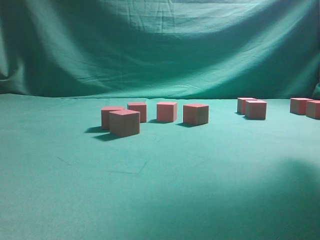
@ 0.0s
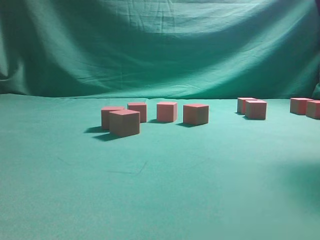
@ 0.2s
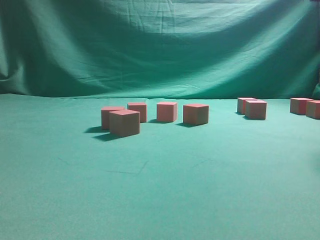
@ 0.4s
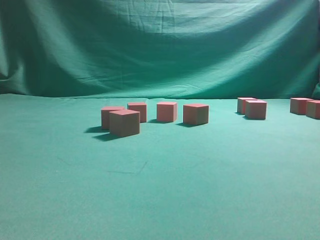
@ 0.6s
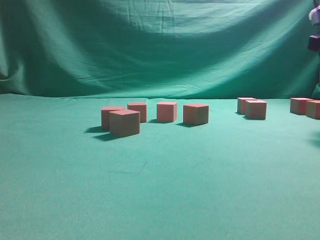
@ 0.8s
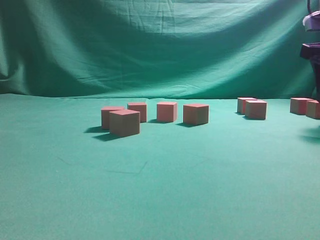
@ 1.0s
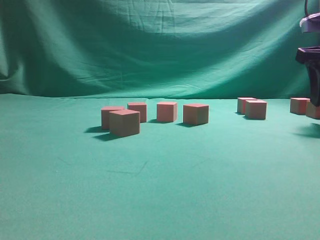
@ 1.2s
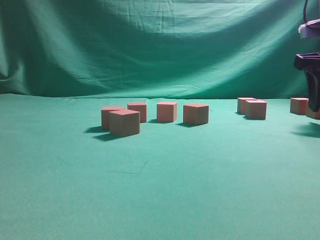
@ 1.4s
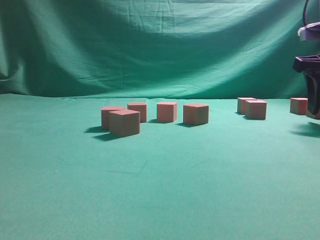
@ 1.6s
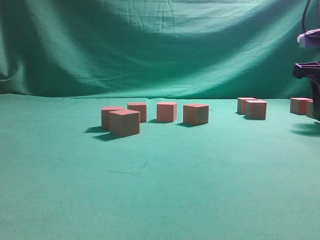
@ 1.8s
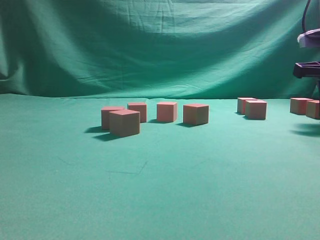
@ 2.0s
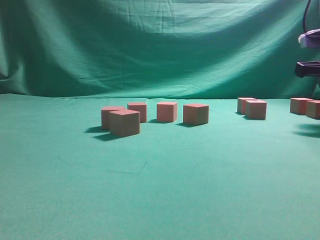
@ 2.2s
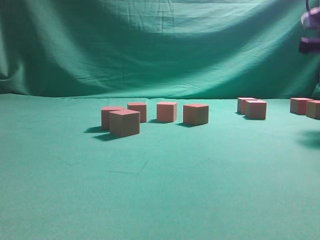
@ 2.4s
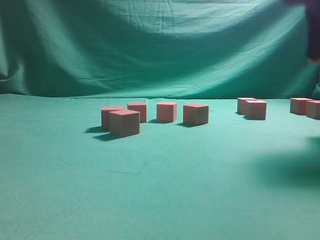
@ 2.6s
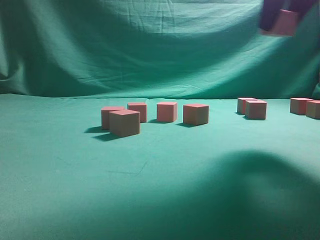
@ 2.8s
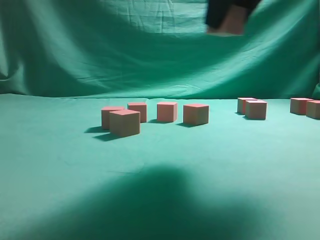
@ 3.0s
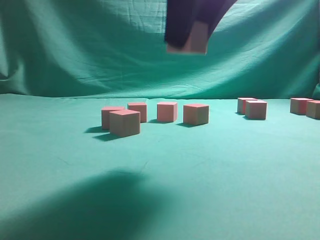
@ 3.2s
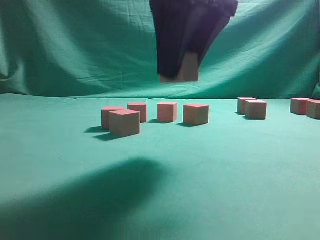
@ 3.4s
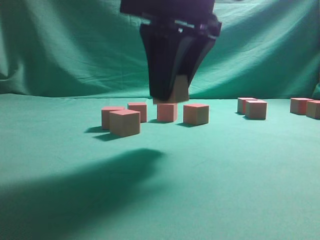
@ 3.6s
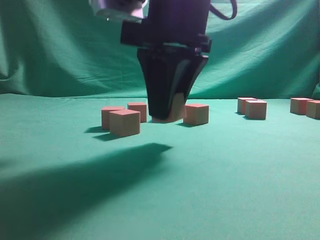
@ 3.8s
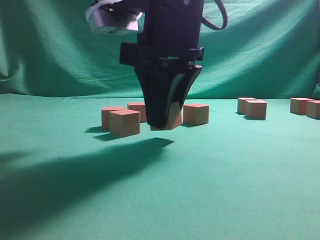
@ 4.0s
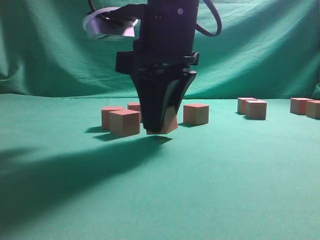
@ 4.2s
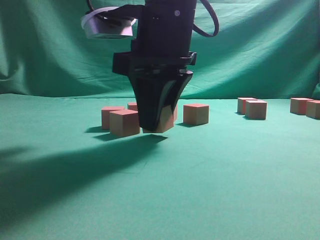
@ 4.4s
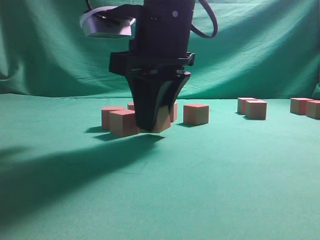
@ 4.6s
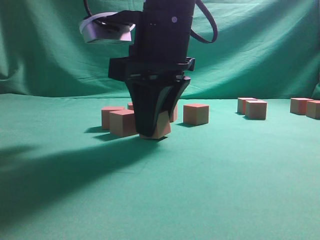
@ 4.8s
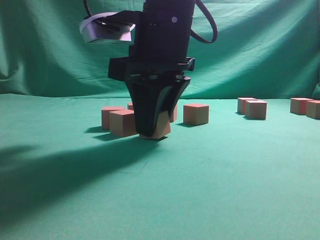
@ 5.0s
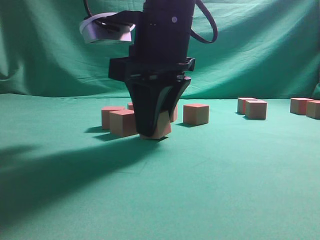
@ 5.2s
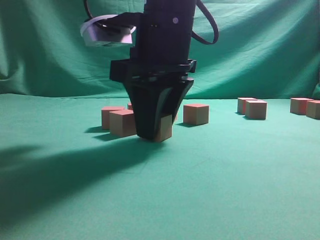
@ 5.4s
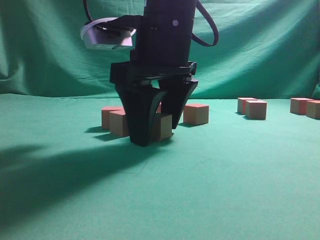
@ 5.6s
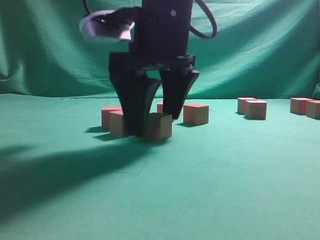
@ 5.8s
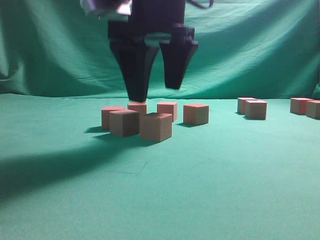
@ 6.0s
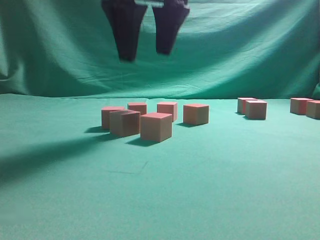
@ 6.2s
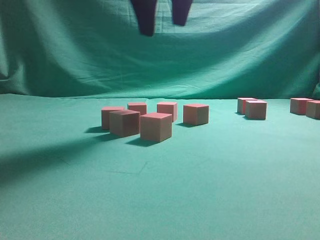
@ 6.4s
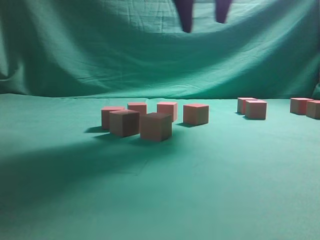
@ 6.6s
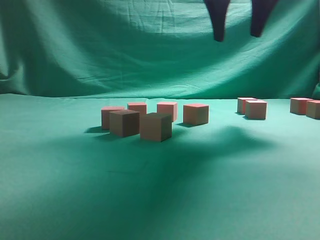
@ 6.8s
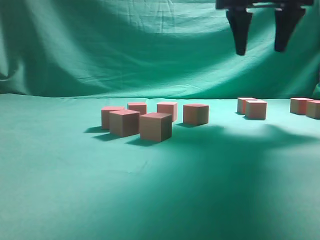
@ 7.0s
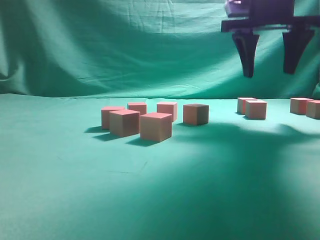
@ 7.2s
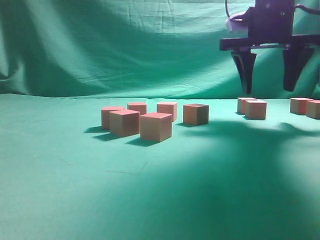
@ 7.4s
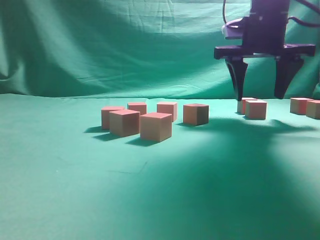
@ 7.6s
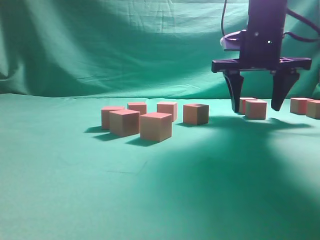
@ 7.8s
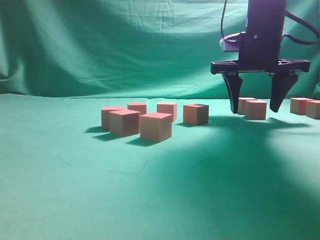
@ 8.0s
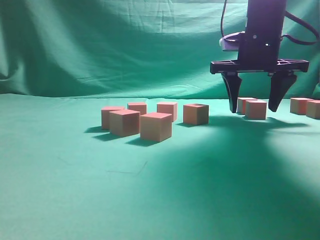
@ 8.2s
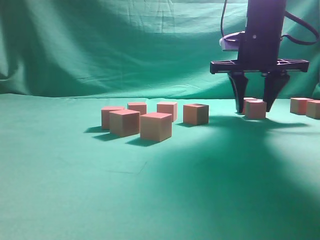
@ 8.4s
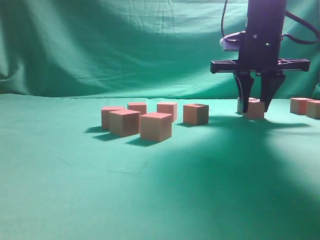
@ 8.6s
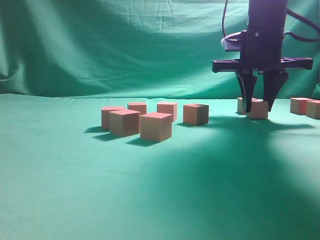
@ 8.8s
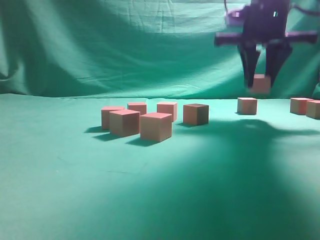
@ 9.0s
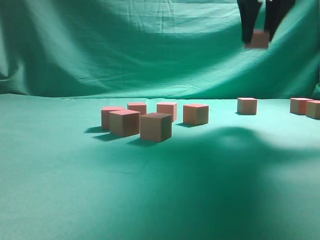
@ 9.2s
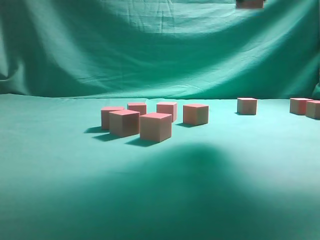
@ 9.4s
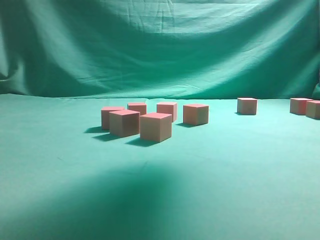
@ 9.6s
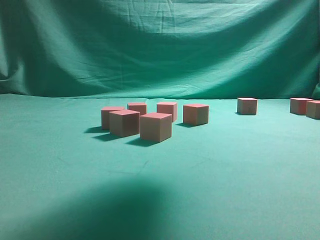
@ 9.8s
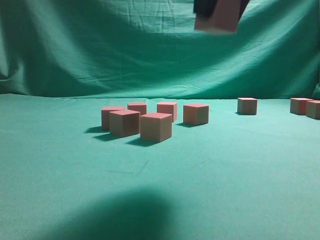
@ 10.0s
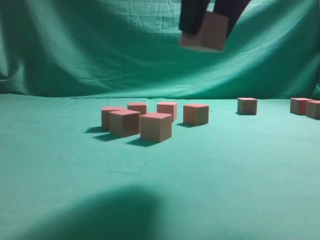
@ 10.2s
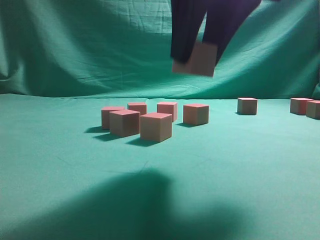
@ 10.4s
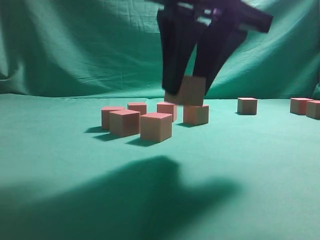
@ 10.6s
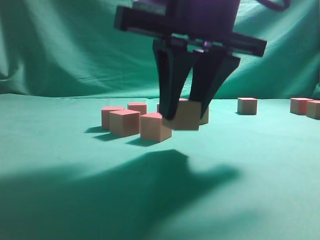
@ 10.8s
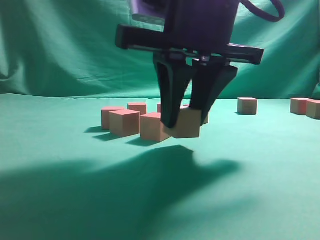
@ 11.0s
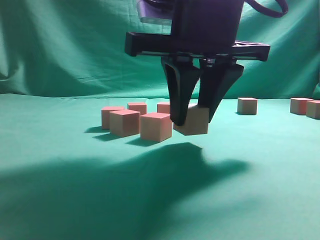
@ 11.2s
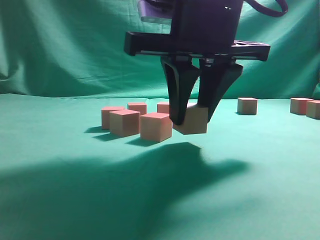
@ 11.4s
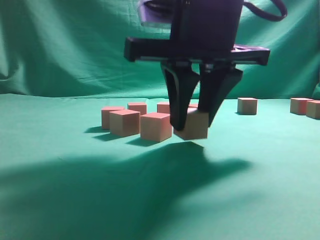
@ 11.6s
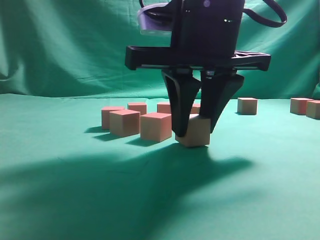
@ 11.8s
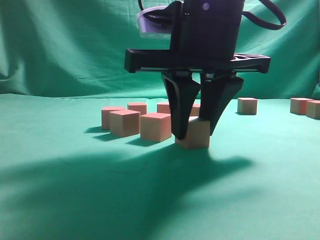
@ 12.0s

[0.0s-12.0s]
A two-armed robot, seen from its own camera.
Task of the whole recording: pick up the multiple cubes in two columns one by one and place them in another position on the table.
Step, 0.0s to 2.2s: Pick up the block on the table.
Step, 2.4s to 6.0s: Place the block at the correct position to assemble the letter S.
Step, 6.4s to 8.8s: Pick up the block on the table.
0.0s to 1.6s: The right gripper goes approximately 20 cm downward and to the right.
1.6s to 3.0s: The right gripper goes roughly 25 cm to the left, backward and upward, and closes up.
3.0s to 4.4s: The right gripper heads downward and to the left, covering some 15 cm.
4.4s to 6.0s: The right gripper opens its fingers.
6.0s to 7.6s: The right gripper is displaced to the right and forward by roughly 20 cm.
7.6s to 9.0s: The right gripper closes up.
9.0s to 10.4s: The right gripper is displaced backward and to the left by about 20 cm.
10.4s to 12.0s: The right gripper goes some 10 cm downward.

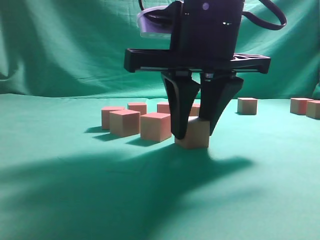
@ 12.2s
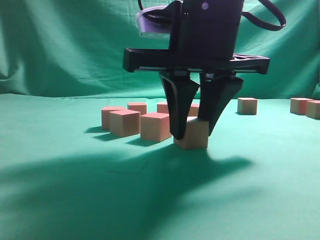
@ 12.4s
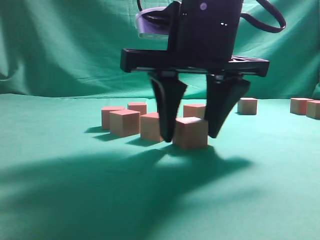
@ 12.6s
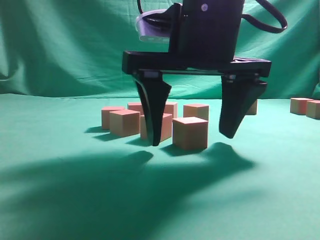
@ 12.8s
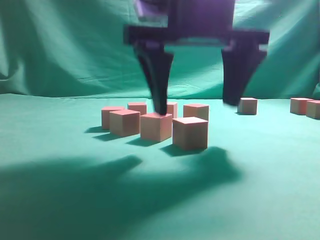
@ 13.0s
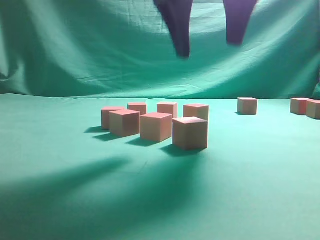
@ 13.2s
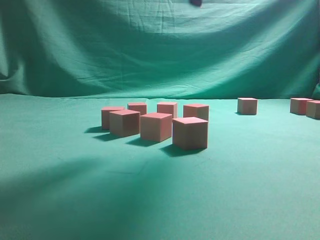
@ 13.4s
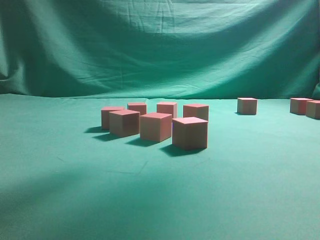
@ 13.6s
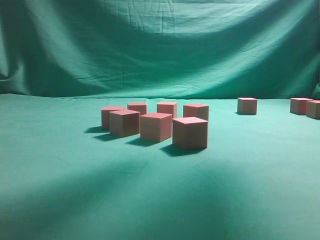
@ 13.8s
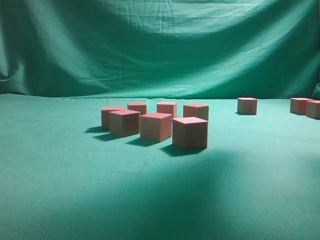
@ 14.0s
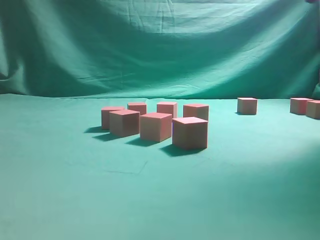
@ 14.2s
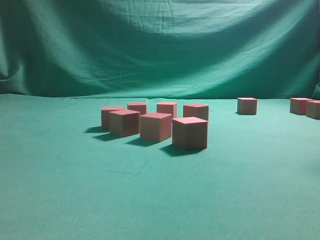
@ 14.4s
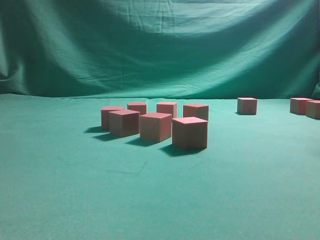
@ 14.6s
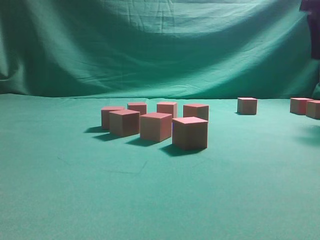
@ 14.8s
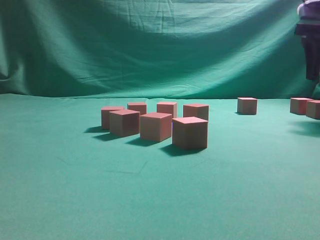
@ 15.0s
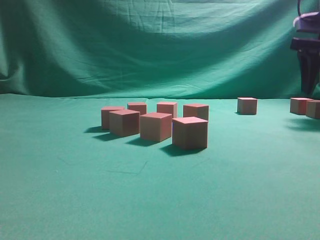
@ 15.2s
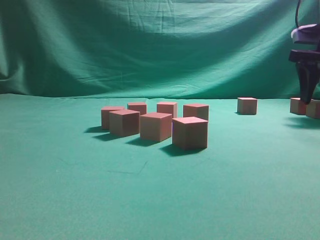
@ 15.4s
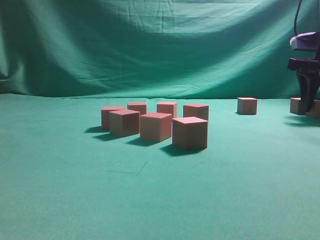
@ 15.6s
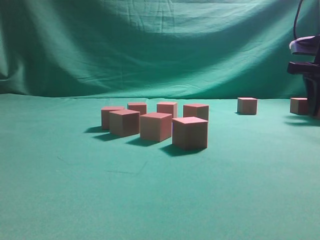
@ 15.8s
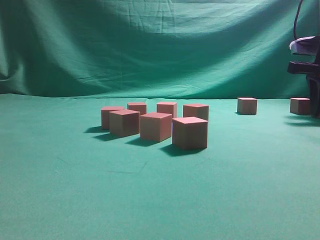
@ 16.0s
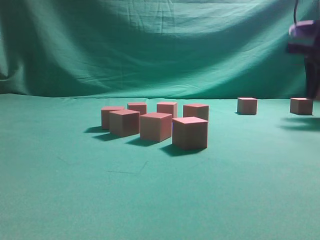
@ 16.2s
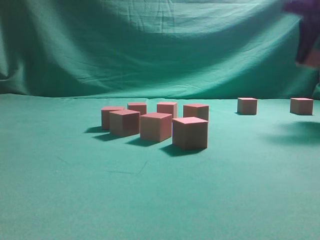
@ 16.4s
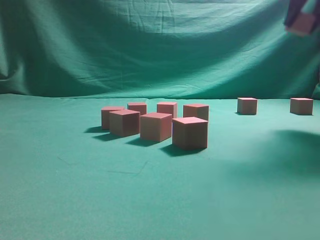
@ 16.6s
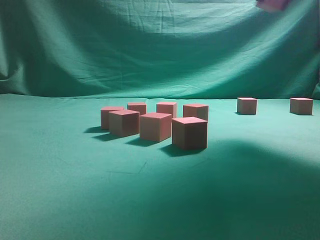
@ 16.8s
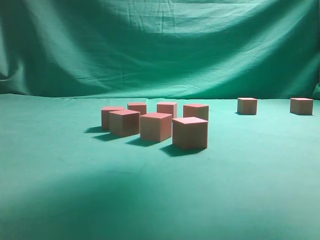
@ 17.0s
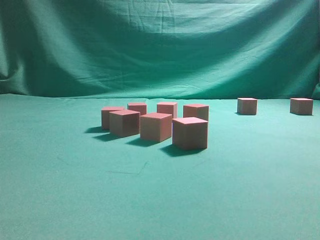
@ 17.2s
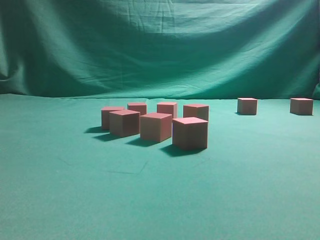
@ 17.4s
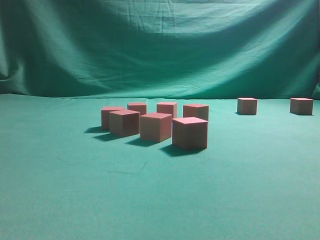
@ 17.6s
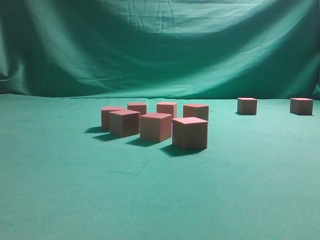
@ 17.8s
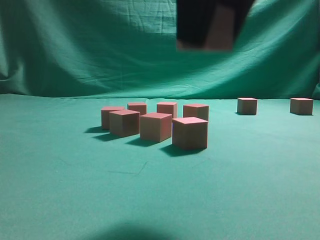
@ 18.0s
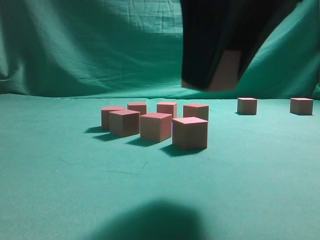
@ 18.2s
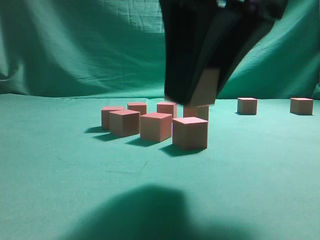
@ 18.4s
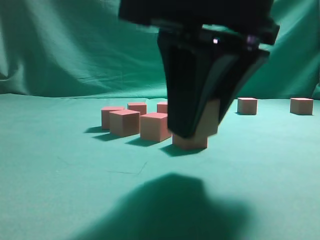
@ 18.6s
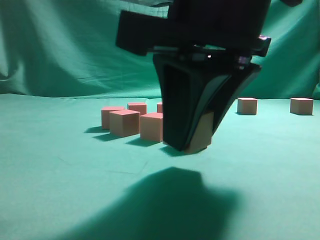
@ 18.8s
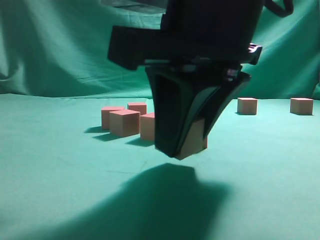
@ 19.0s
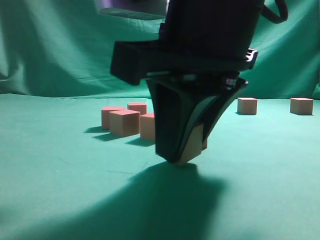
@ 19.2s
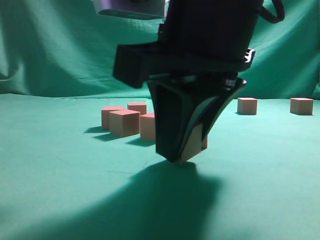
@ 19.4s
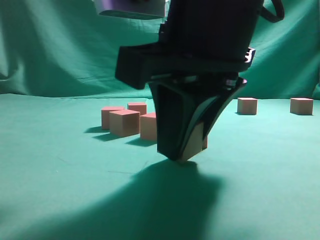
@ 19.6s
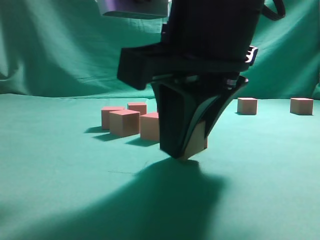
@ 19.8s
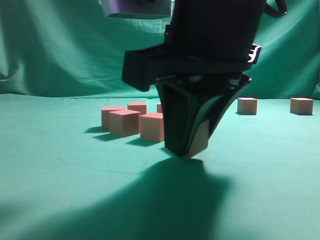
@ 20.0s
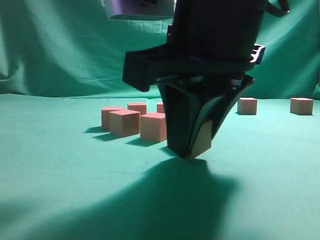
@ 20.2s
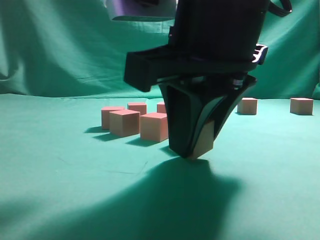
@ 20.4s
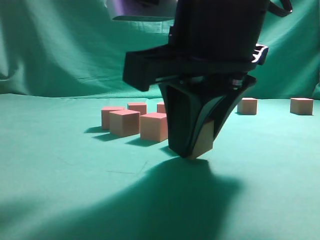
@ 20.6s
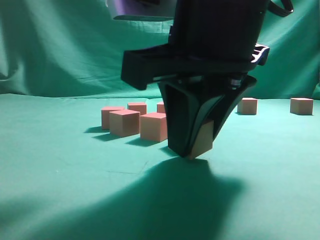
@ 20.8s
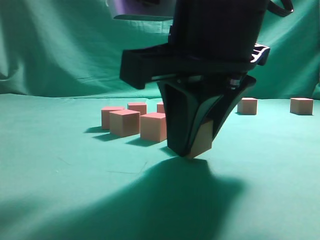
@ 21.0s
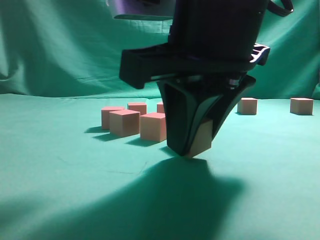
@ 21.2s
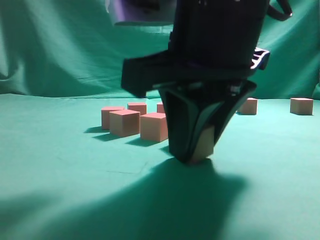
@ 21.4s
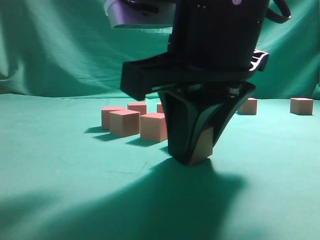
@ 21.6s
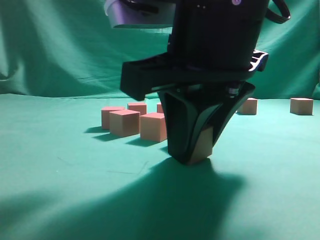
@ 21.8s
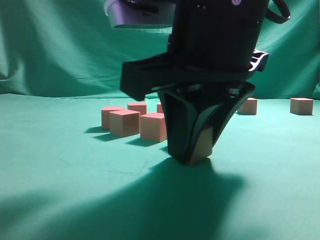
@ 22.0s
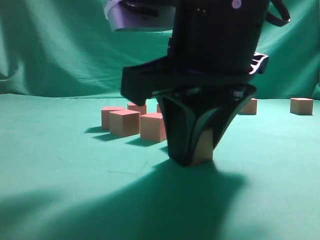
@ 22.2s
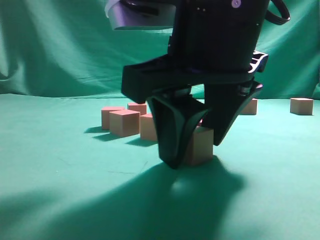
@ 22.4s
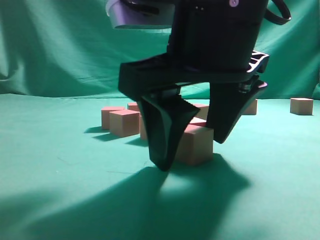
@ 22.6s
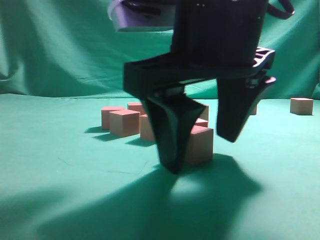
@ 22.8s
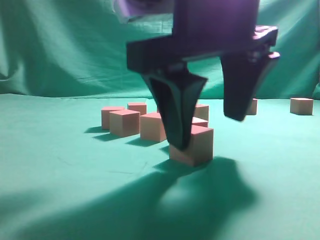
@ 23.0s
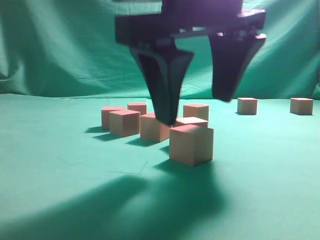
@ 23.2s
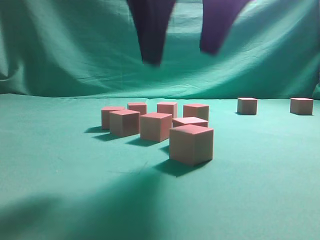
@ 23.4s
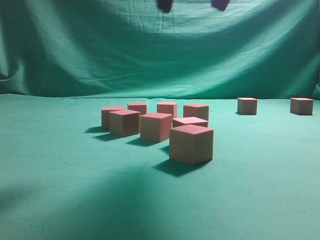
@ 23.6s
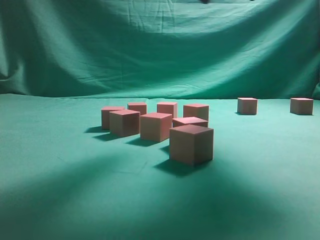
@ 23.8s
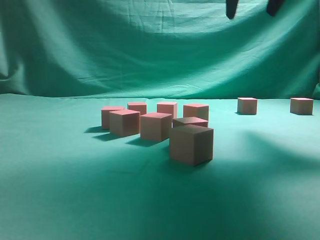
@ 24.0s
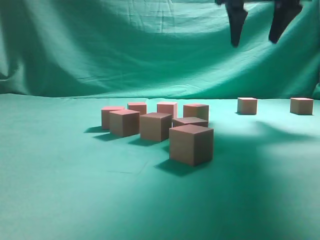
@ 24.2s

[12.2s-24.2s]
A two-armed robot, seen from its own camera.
Task of the whole recording: pick up the multiple cubes in two columns one by one and place them in another position on the table.
Step, 13.4s to 16.0s: Pick up the block on the table.
Step, 16.4s to 23.2s: Place the block at the correct position to assemble the letter S.
12.2s to 13.8s: The right gripper heads upward, covering roughly 20 cm, and opens.
13.8s to 15.2s: The right gripper heads to the right, downward and forward, covering roughly 30 cm.
15.2s to 16.6s: The right gripper travels upward by some 10 cm, and closes up.
16.6s to 18.2s: The right gripper travels backward and to the left by some 30 cm.
18.2s to 19.8s: The right gripper travels downward by approximately 5 cm.
19.8s to 21.2s: The grippers make only small movements.
21.2s to 22.6s: The right gripper opens up.
22.6s to 24.2s: The right gripper shifts roughly 25 cm forward, upward and to the right.
